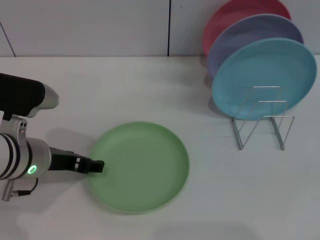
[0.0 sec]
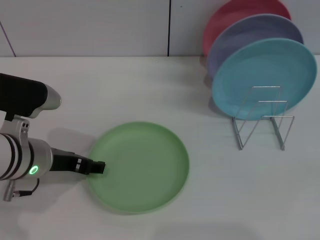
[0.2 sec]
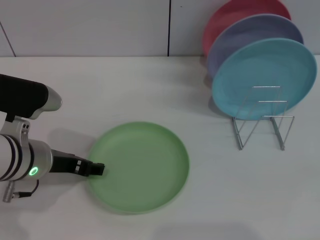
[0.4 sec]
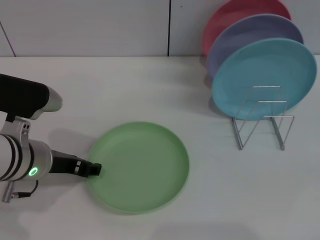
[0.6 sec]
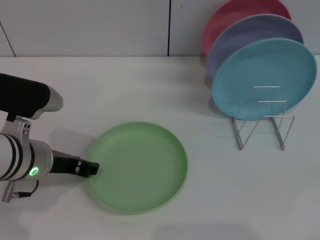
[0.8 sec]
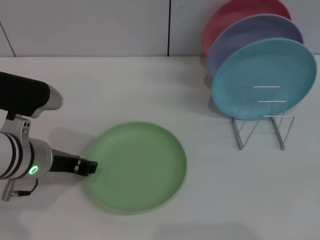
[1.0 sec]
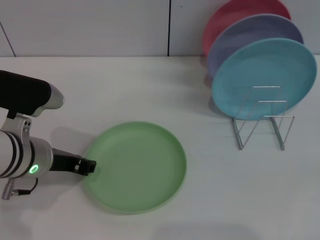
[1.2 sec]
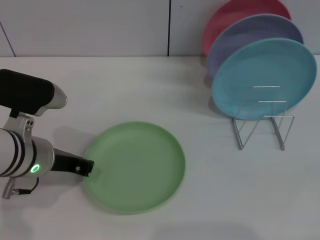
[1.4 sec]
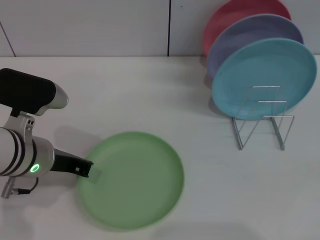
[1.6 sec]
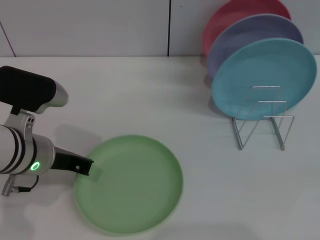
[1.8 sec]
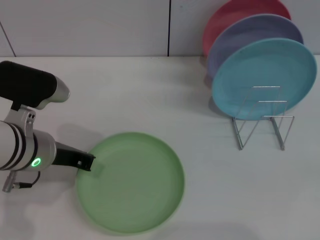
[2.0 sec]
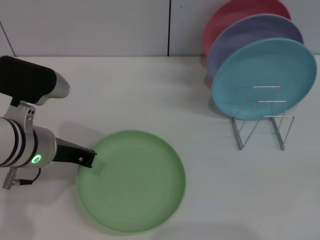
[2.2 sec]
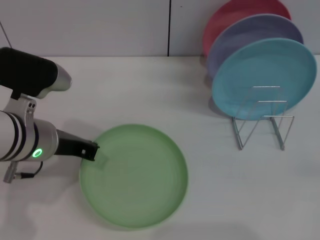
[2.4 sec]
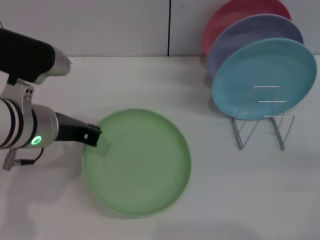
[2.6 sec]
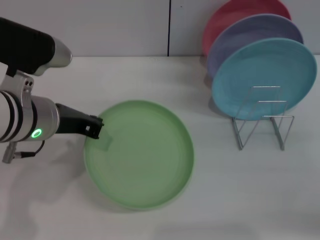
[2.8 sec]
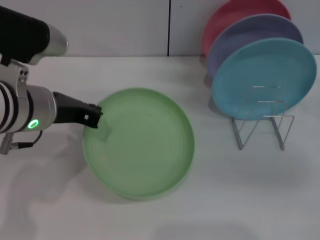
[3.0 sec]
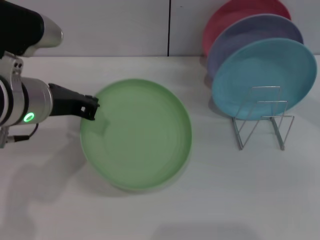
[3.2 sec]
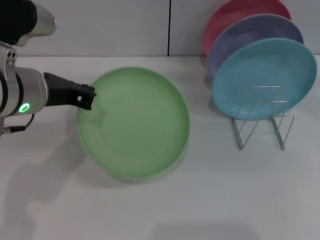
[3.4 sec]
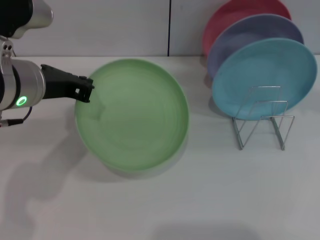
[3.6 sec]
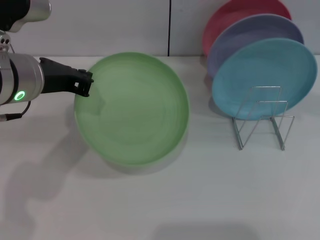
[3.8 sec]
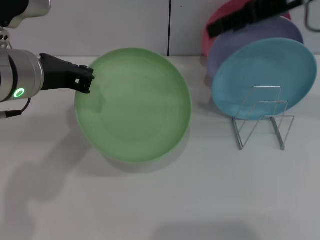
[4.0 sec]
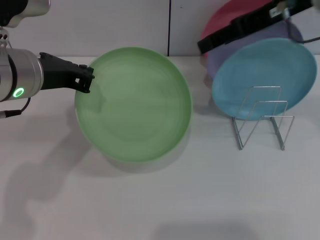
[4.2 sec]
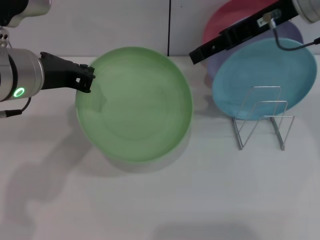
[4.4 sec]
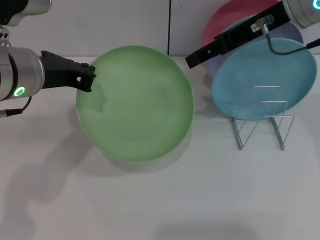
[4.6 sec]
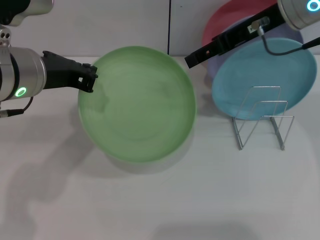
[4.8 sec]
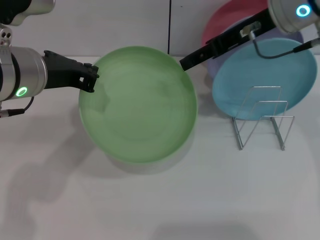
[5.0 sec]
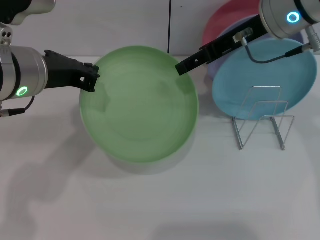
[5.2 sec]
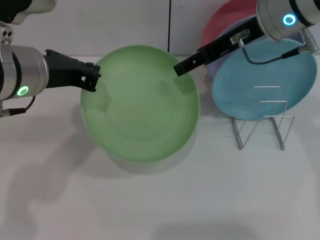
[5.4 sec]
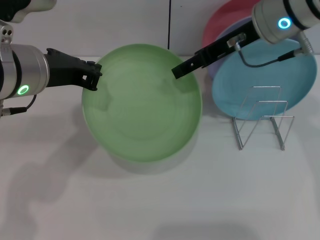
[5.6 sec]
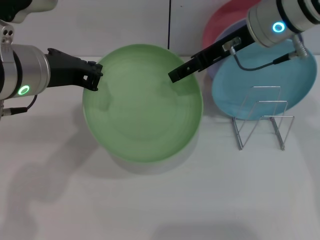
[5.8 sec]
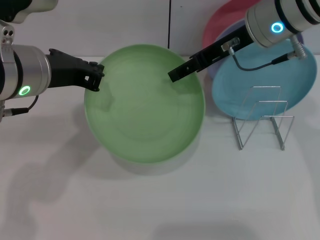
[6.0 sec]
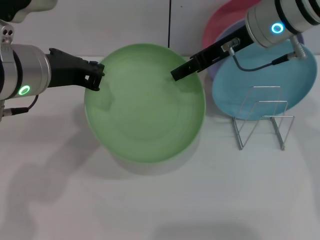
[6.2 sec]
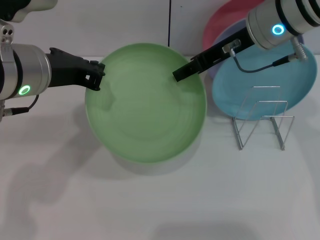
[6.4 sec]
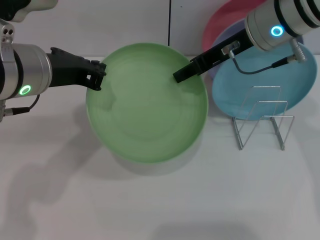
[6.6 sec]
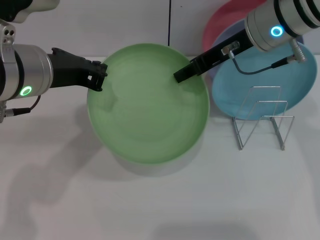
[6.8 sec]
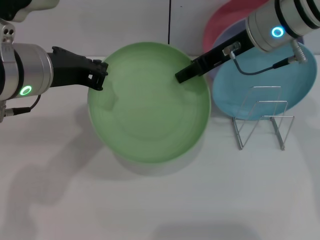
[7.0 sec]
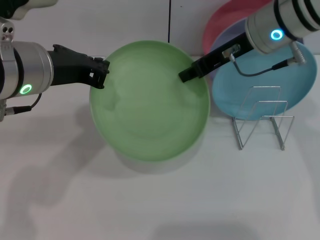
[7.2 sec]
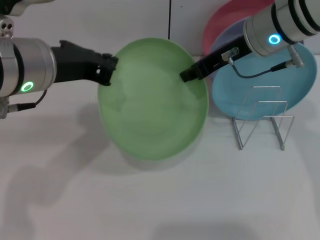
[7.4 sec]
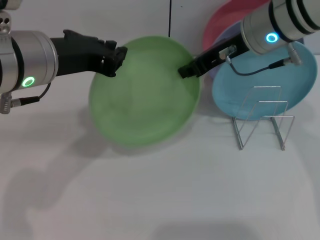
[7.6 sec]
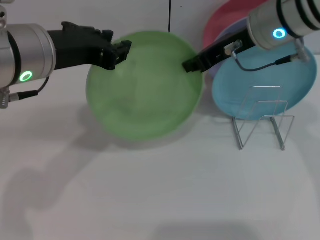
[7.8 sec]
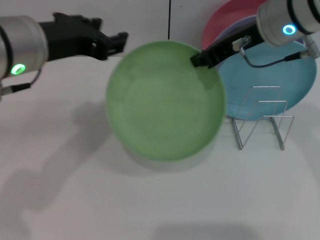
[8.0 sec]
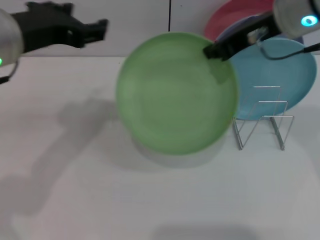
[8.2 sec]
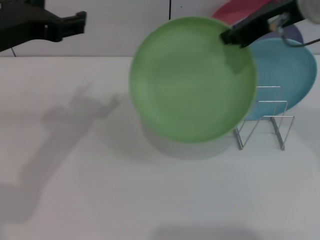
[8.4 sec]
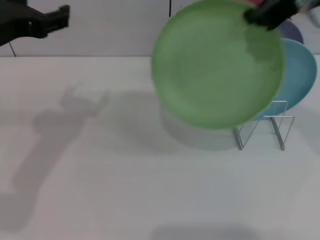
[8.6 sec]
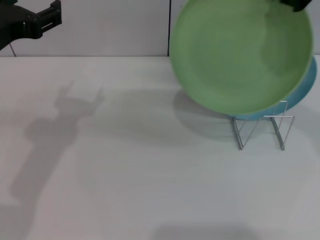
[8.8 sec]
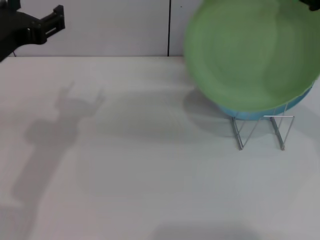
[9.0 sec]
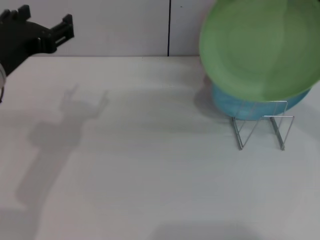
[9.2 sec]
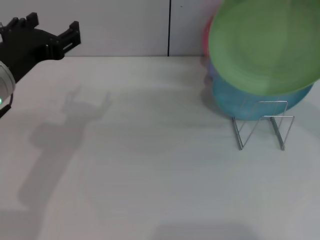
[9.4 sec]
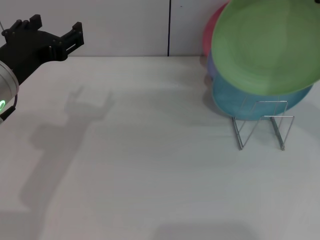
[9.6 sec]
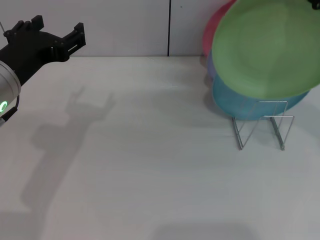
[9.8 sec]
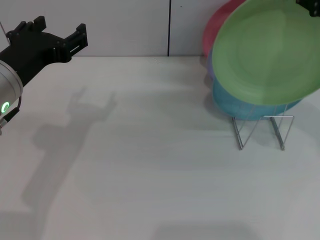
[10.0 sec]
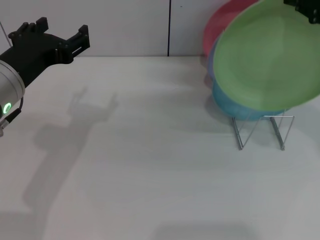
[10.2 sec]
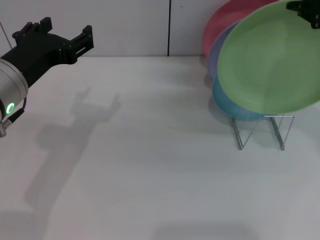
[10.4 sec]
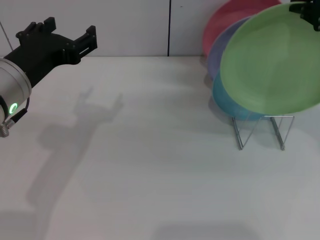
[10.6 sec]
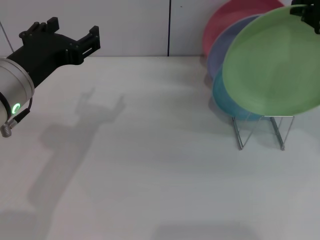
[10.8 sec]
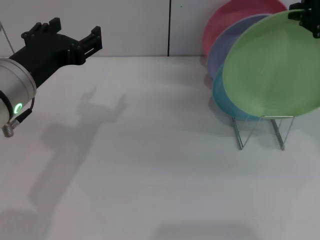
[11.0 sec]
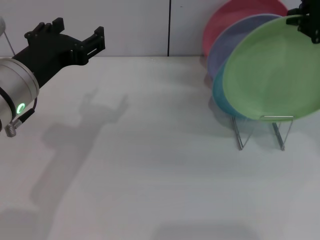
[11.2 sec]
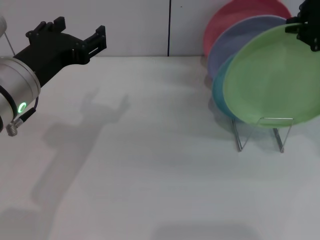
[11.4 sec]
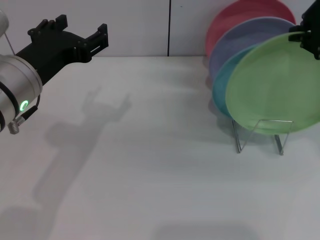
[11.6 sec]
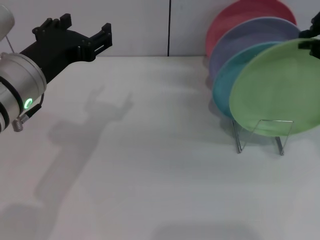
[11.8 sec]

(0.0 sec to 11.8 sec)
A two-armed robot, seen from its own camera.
Task of the whole recording: Grip the plate with one hand, pass it to the other, then set it on the shelf.
Step, 0.0 sec - 3.6 sec: Pick up the plate with the left gripper.
Step, 3.8 sec - 8.0 sec: Pass the plate from the left gripper to the right gripper.
0.0 sec - 1.4 sec: The left gripper closes.
1.4 sec - 3.0 sec: The left gripper heads upward, covering about 5 cm, and closes up, while the right gripper shifts roughly 20 cm forward and upward.
3.0 sec - 4.4 sec: The right gripper travels to the left, upward and forward by about 20 cm.
4.4 sec - 6.0 sec: The right gripper shifts by approximately 5 cm.
6.0 sec - 7.4 sec: The right gripper closes up.
7.4 sec - 8.8 sec: The right gripper goes about 15 cm upward, backward and to the right. The left gripper travels to the left by roughly 5 cm, and opens up.
8.8 sec - 10.4 sec: The left gripper shifts by some 5 cm.
10.4 sec - 11.8 sec: The grippers move only a little.

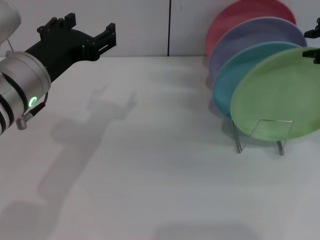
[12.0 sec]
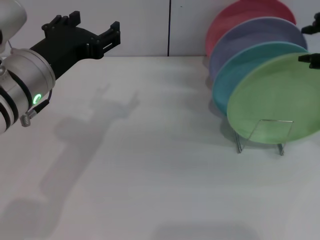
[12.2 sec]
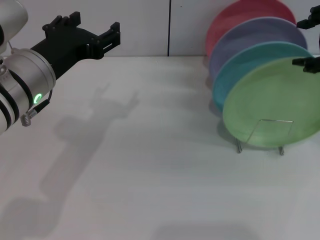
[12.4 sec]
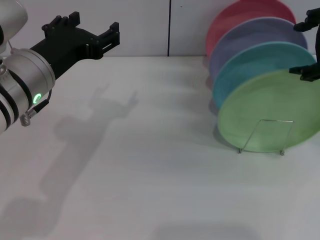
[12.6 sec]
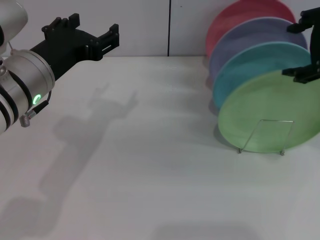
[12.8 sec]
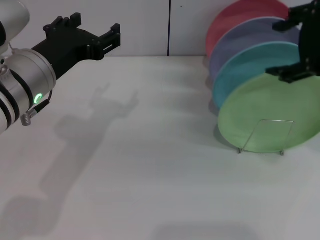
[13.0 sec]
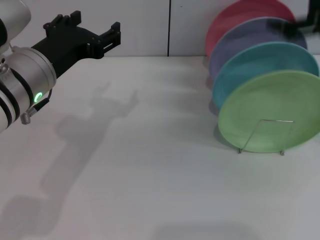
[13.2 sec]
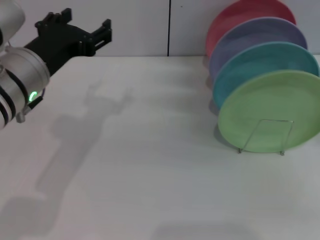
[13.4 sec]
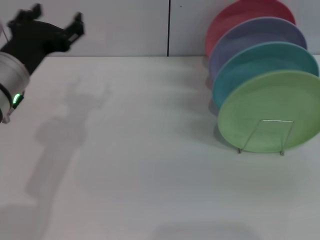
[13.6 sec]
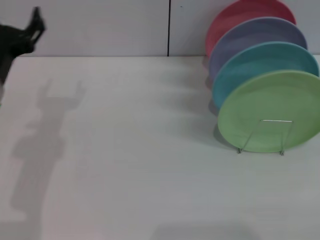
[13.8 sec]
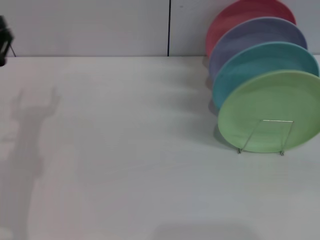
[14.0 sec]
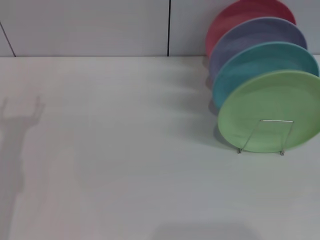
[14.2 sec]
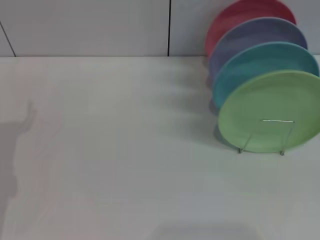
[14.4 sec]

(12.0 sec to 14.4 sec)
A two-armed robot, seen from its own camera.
Task of the whole recording: Grip the plate with one hand, pass it to the other, then set it on the shelf.
12.0 sec - 13.2 sec: The right gripper opens up.
13.2 sec - 14.4 sec: The right gripper moves downward, to the right and backward, roughly 35 cm. Meanwhile the left gripper is displaced downward and to the left by about 20 cm.
